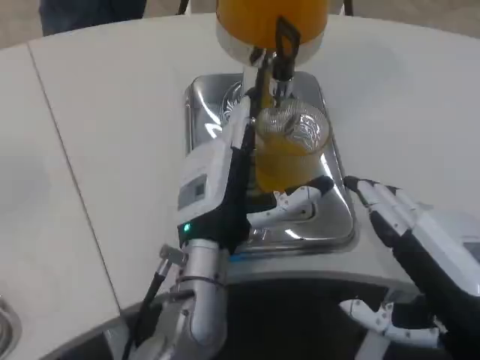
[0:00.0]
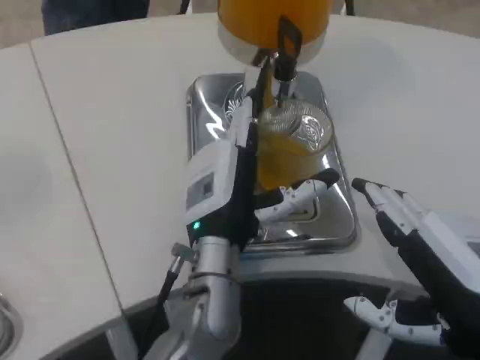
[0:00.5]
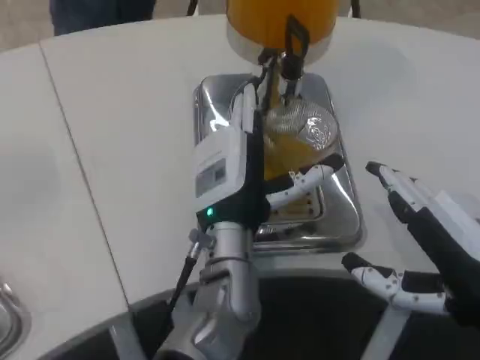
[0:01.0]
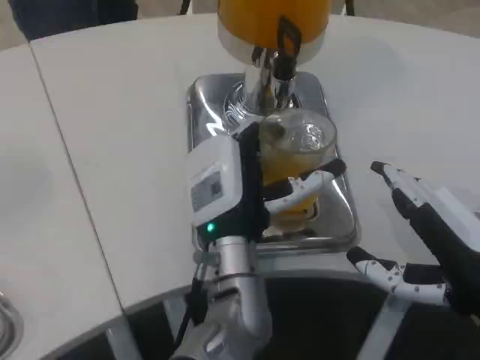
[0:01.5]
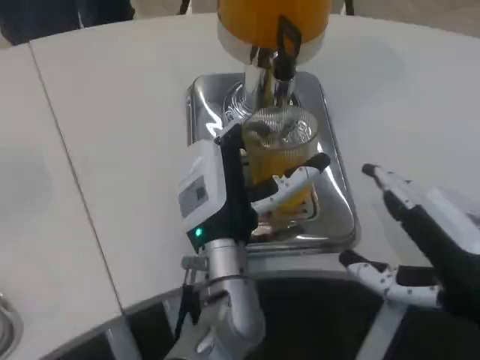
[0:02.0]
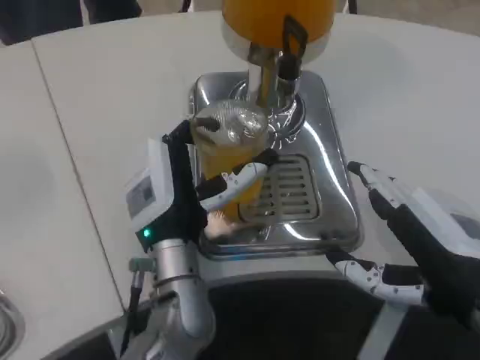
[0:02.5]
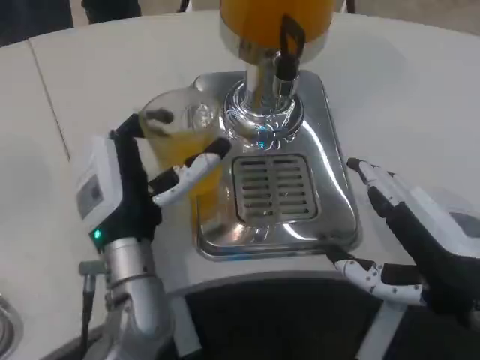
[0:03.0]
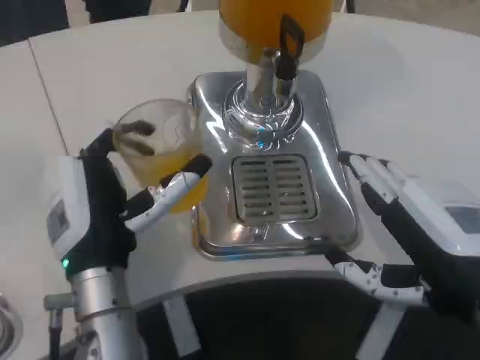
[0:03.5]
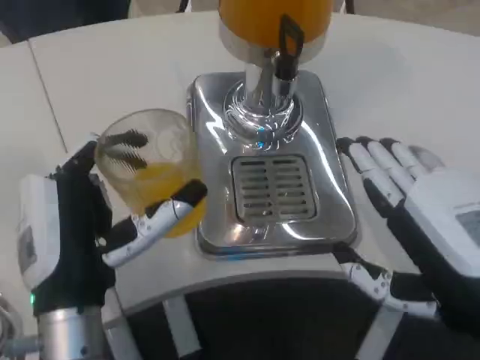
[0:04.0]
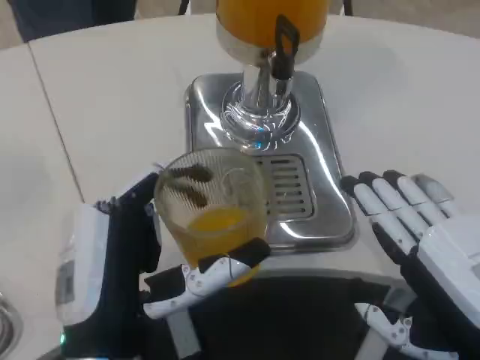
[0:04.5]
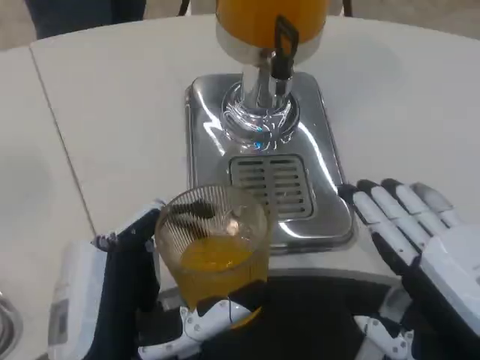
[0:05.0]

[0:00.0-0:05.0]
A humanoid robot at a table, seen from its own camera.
Task of the whole recording: Grasp the cup under the faucet to collect the drink, then remove the cup.
0:02.5 to 0:05.0: The right hand shifts roughly 5 cm backward; the left hand heads backward, covering about 15 cm.

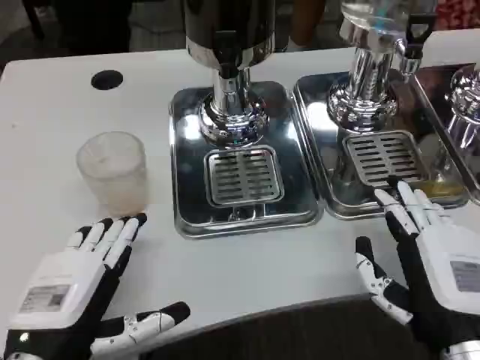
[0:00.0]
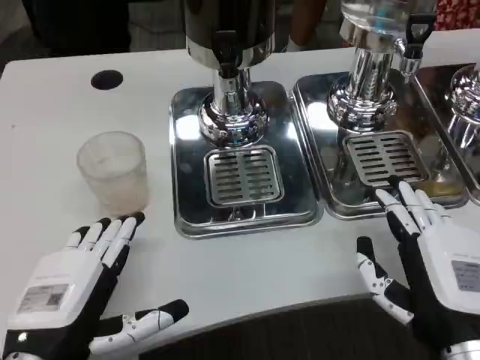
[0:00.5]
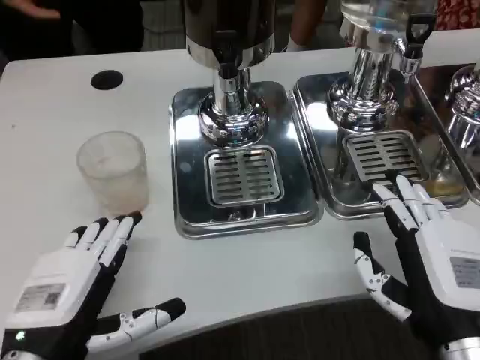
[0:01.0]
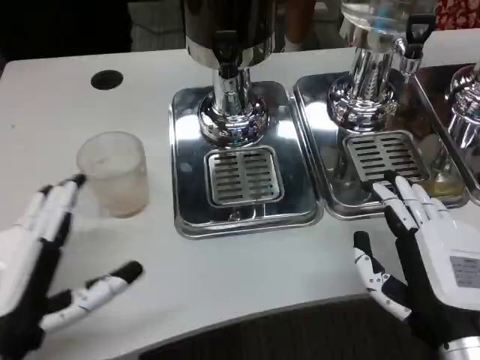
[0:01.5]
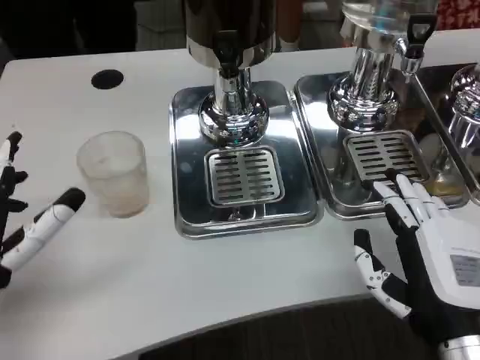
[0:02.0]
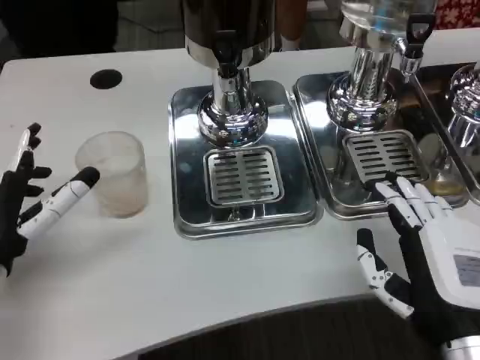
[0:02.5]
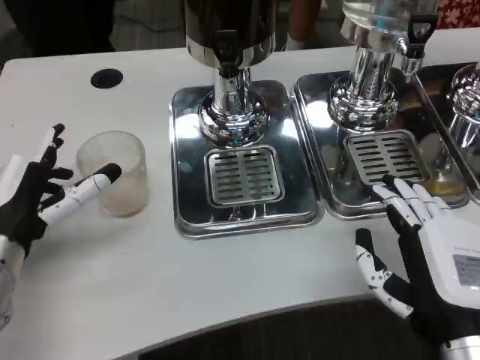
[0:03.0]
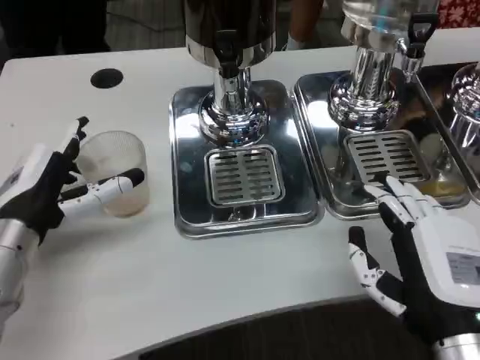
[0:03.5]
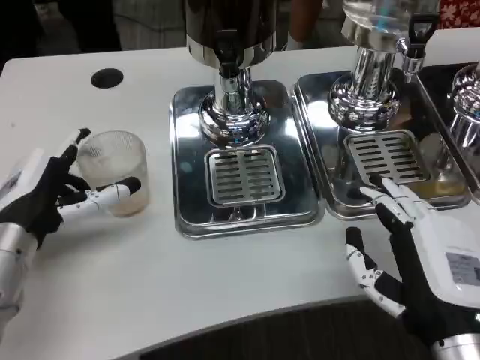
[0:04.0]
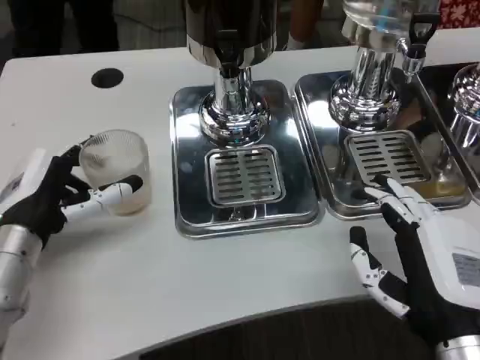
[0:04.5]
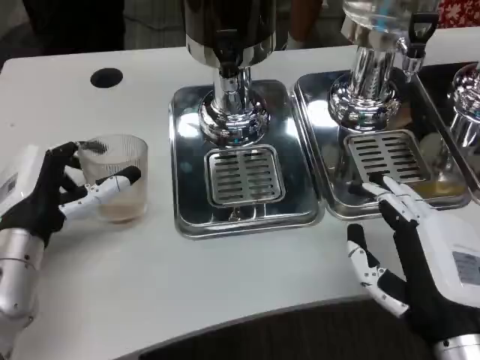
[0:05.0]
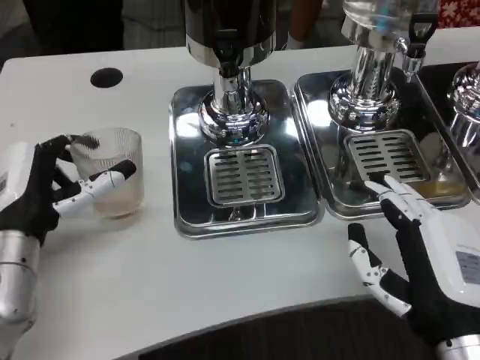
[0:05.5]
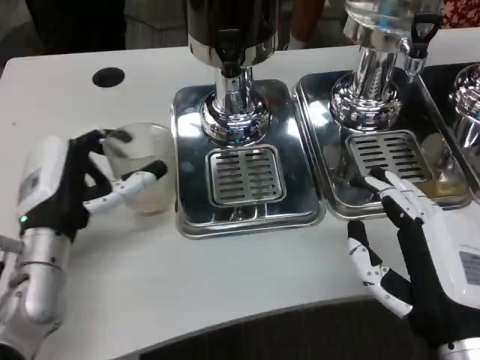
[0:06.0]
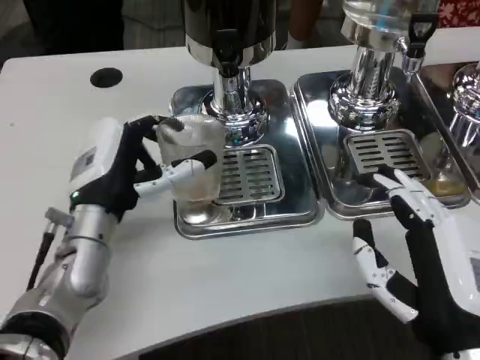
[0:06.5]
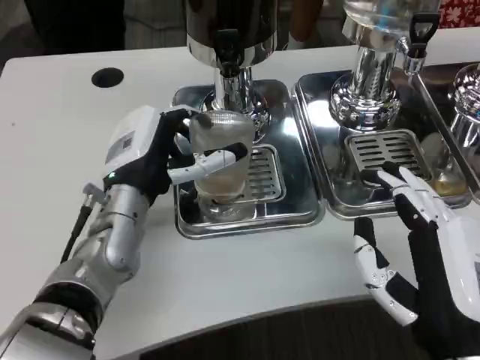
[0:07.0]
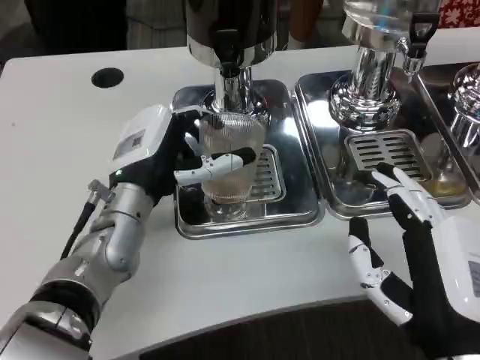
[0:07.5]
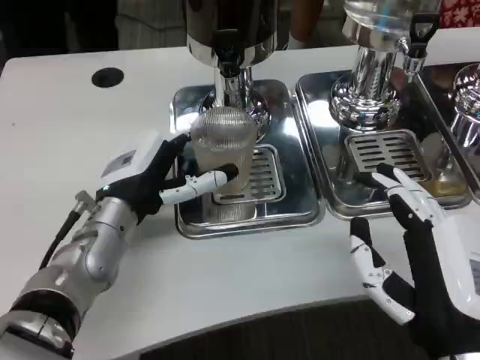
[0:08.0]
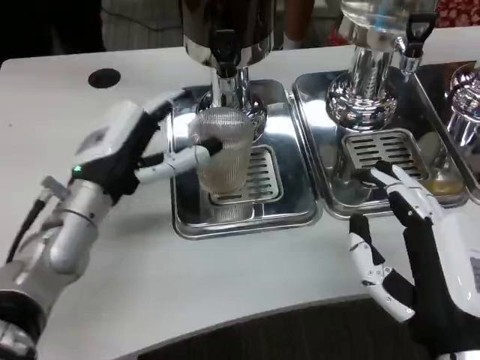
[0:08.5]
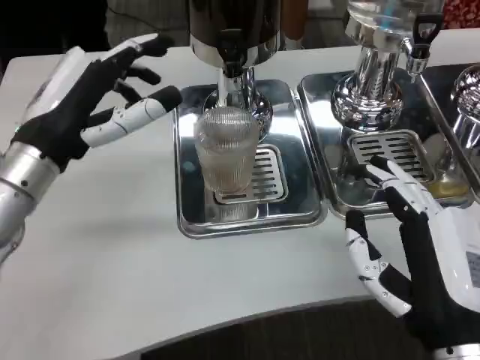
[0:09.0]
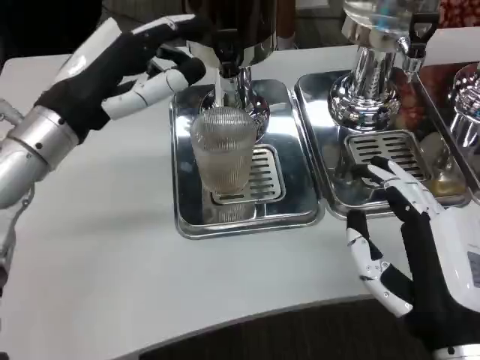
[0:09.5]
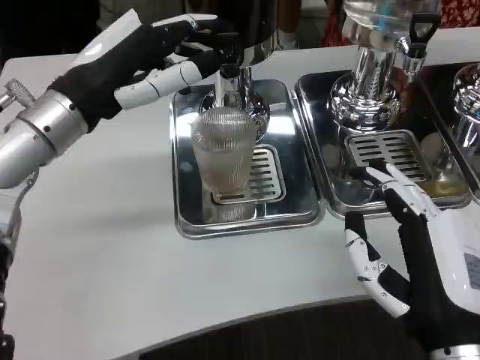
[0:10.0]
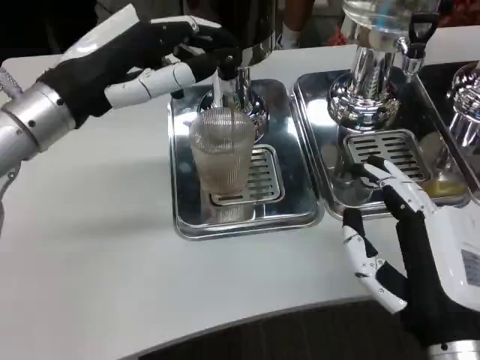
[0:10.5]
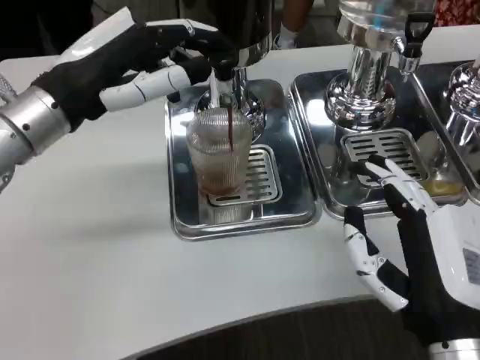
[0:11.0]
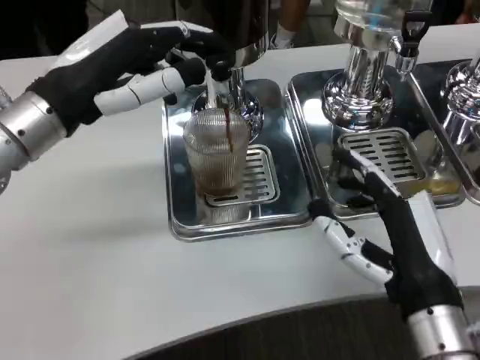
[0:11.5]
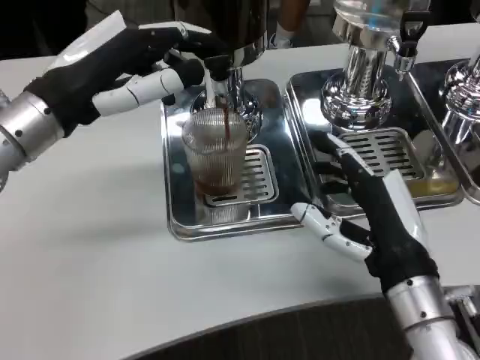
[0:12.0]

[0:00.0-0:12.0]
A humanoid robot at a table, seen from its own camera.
Task of the whole recording: Grasp the cup under the faucet to collect the drink, then remove the cup.
0:00.0 to 0:02.0: The left hand travels forward and to the left by approximately 5 cm.
0:02.0 to 0:04.0: The left hand shifts some 10 cm forward.
0:06.0 to 0:08.0: The left hand moves about 5 cm.
0:08.0 to 0:10.0: The left hand goes roughly 10 cm upward.
0:10.0 to 0:12.0: The right hand is displaced forward by roughly 5 cm.

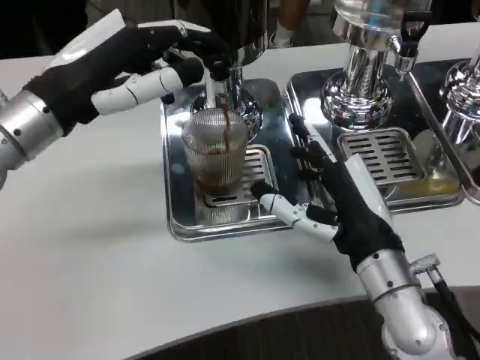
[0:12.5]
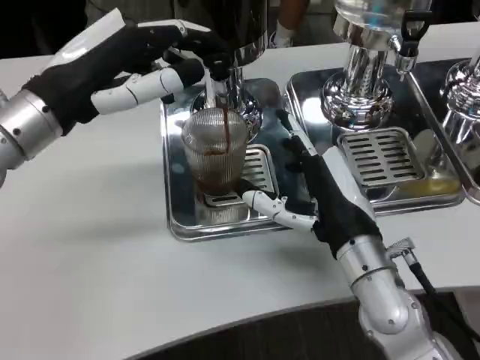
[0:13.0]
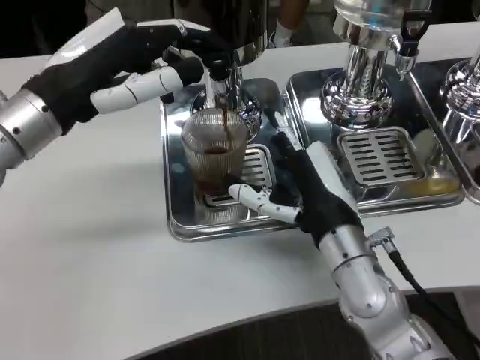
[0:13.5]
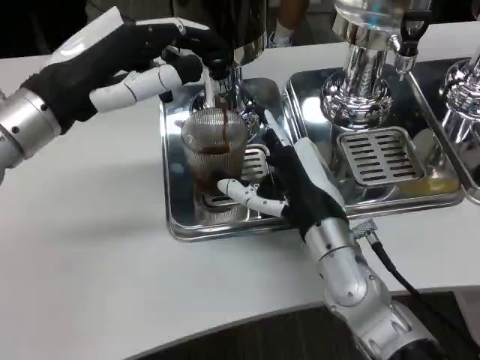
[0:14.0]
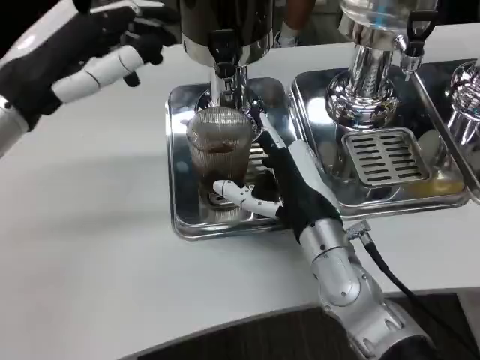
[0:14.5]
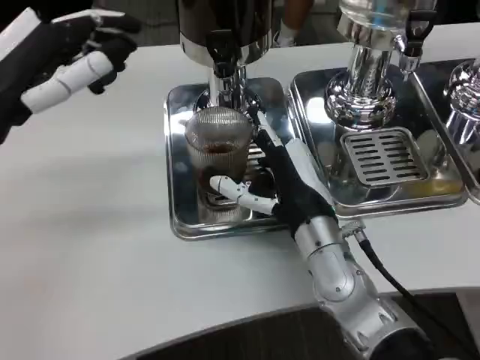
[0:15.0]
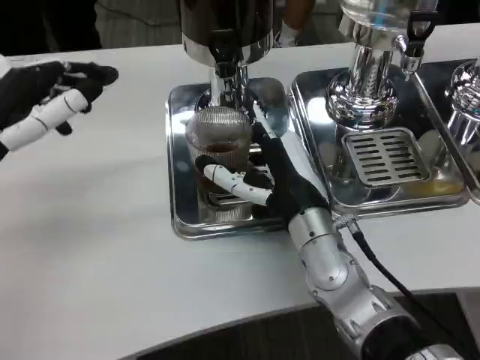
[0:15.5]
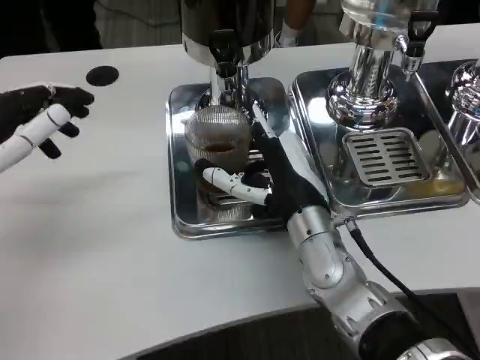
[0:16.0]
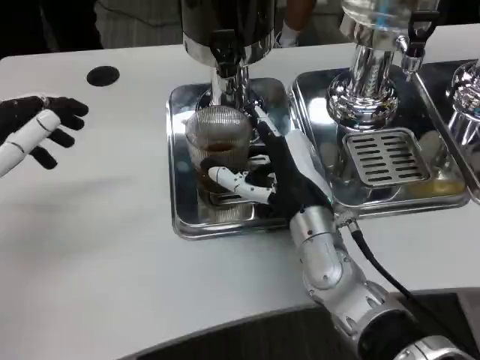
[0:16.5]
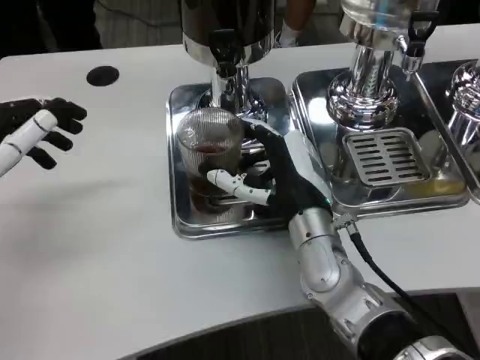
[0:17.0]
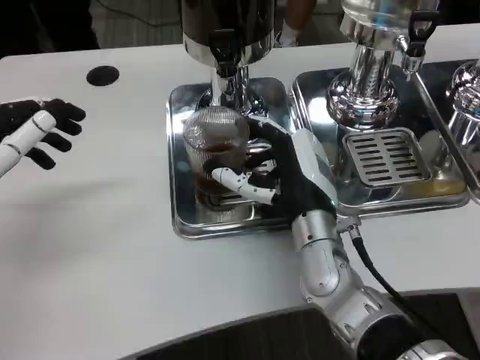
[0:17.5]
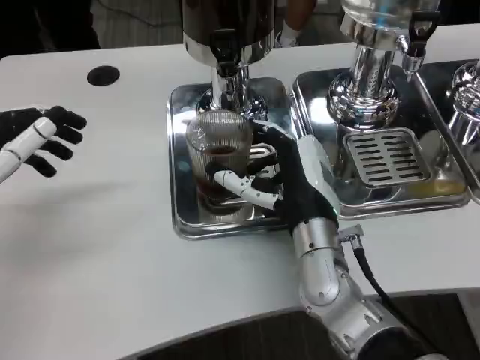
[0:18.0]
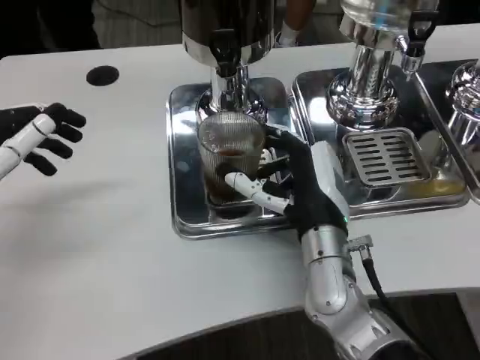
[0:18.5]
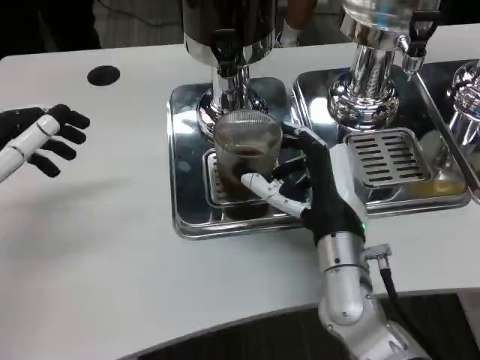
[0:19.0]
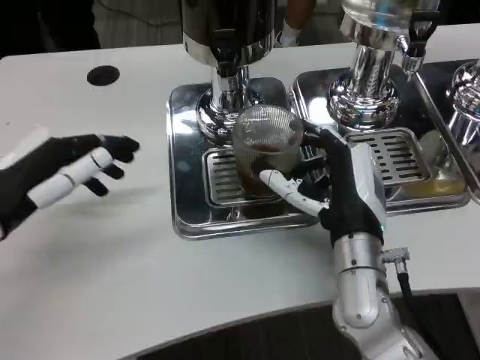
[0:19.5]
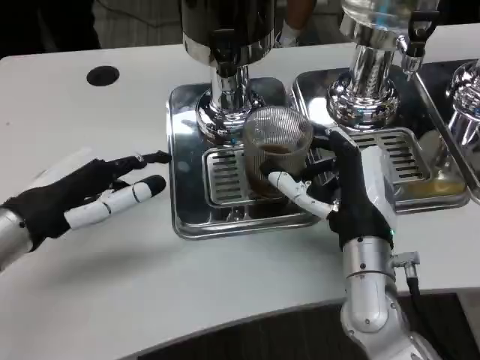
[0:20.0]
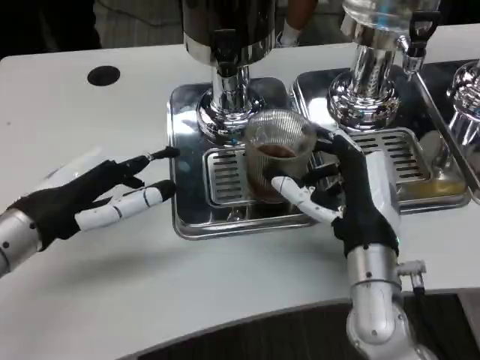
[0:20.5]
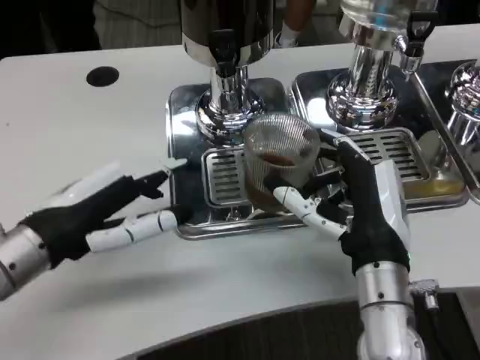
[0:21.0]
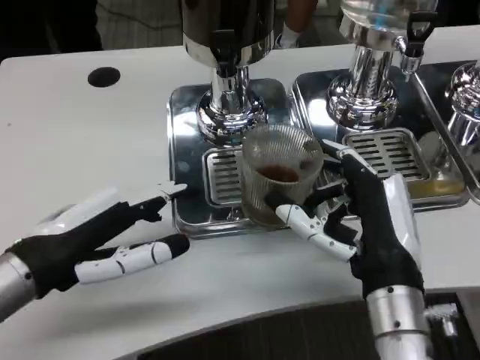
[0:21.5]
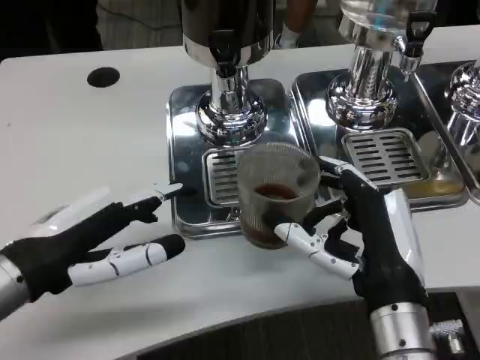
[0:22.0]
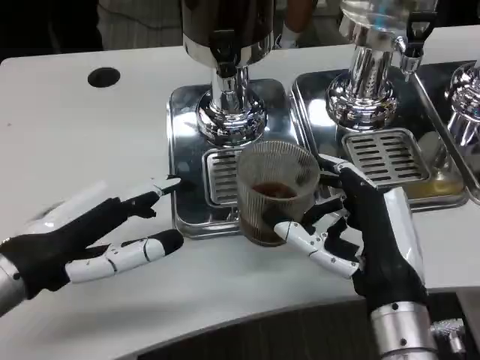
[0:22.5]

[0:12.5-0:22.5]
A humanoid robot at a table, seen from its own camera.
Task of the whole recording: Grasp the cup under the faucet to collect the drink, then remove the cup.
0:12.5 to 0:14.5: The right hand travels to the left by about 5 cm.
0:14.5 to 0:16.5: The left hand travels backward by approximately 5 cm.
0:16.5 to 0:18.5: The hands stay close to where they were, moving slightly.
0:18.5 to 0:20.5: The left hand shifts some 5 cm to the right.
0:20.5 to 0:22.5: Both hands travel together backward, about 5 cm.
